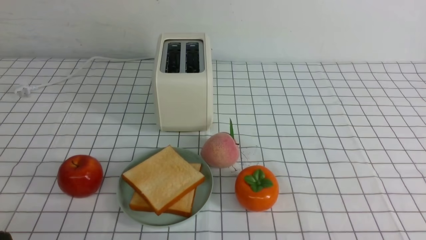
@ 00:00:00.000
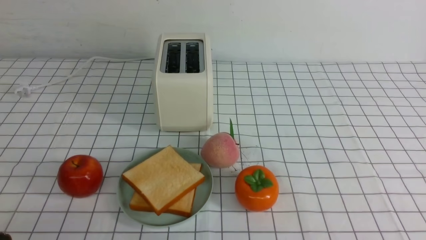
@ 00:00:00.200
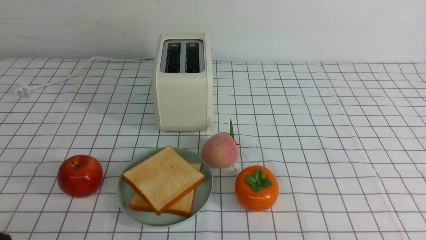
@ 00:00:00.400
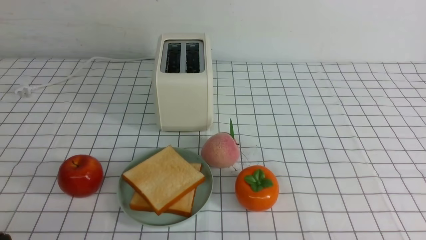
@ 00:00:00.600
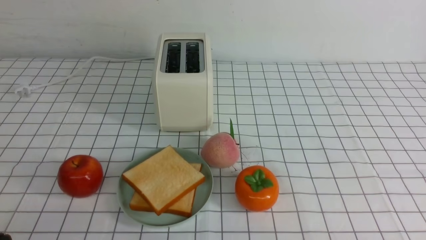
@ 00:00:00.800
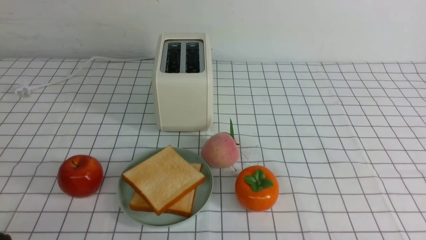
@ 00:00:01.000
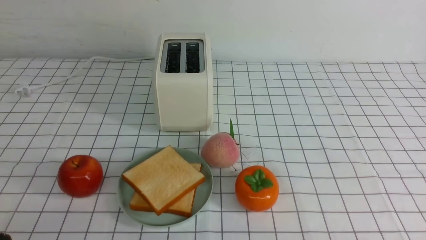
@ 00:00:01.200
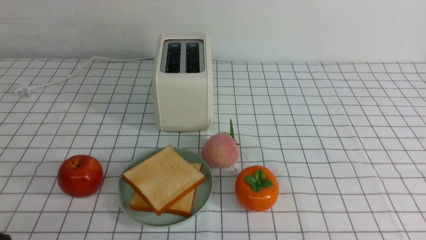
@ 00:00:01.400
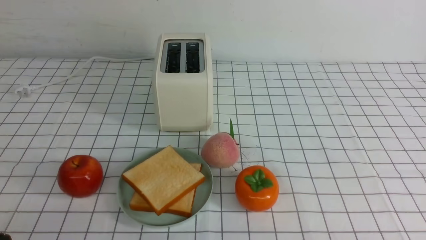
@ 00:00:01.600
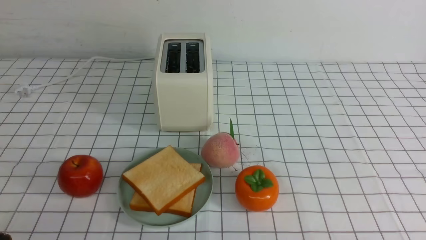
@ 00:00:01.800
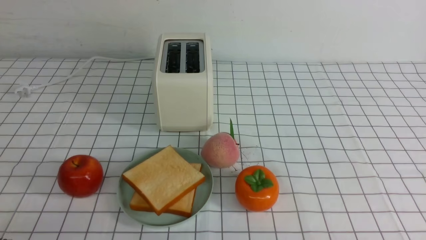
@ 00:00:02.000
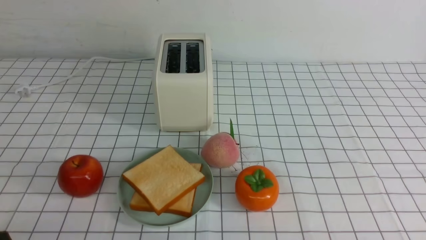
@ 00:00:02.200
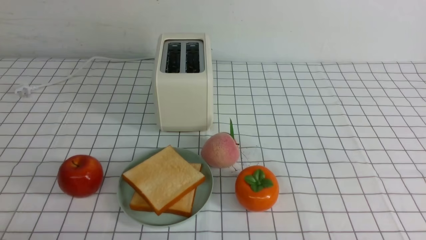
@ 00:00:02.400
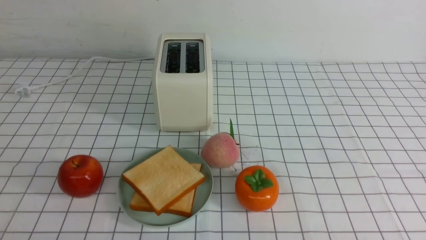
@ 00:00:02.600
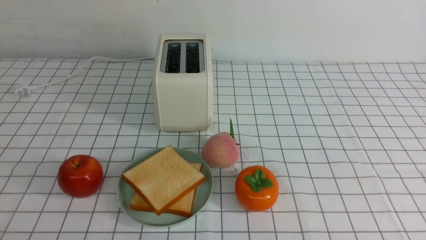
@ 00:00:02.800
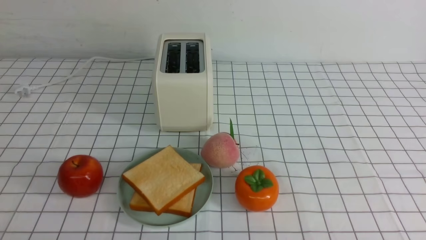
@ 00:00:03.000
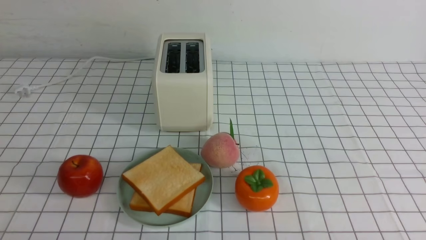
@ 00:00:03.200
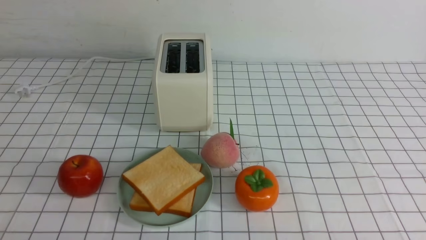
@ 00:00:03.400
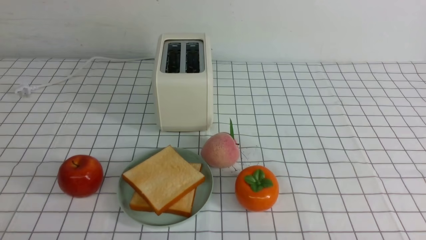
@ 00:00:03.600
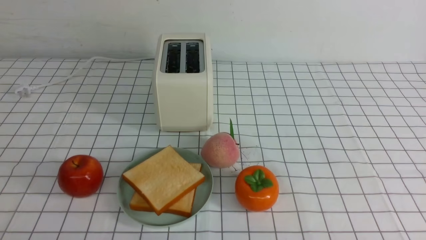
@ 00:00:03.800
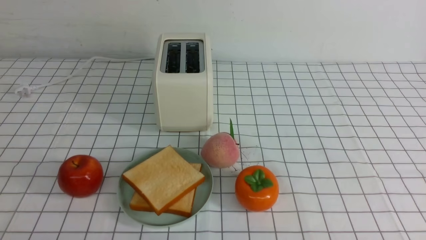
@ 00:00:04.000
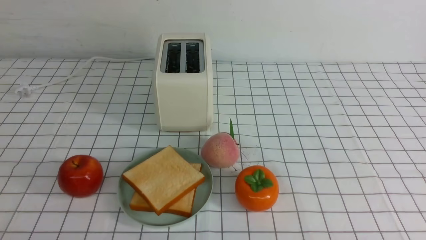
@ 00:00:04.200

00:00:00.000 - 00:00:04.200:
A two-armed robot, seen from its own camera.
Task of the whole recording: take toasted bread from bread machine on white checkered table place on plate.
00:00:02.800 - 00:00:04.200: Both grippers stay put.

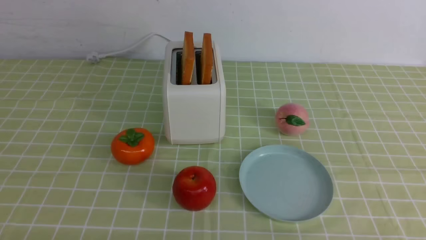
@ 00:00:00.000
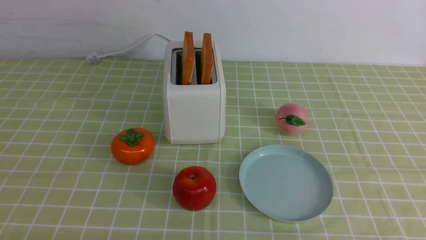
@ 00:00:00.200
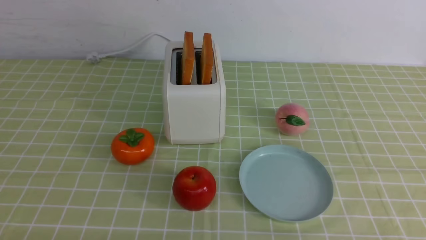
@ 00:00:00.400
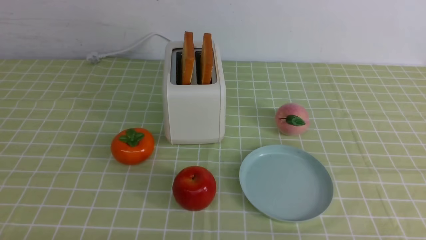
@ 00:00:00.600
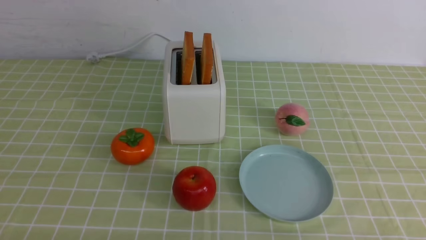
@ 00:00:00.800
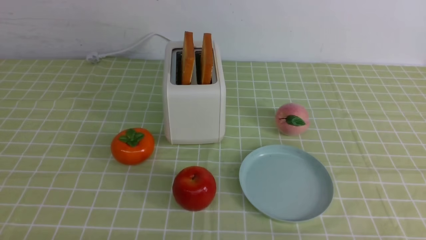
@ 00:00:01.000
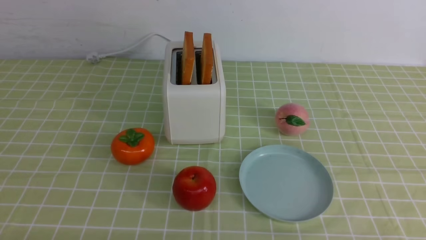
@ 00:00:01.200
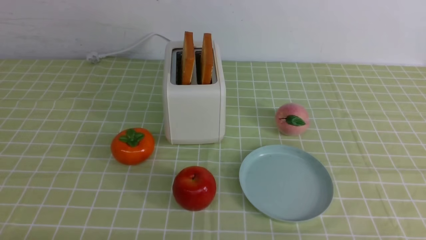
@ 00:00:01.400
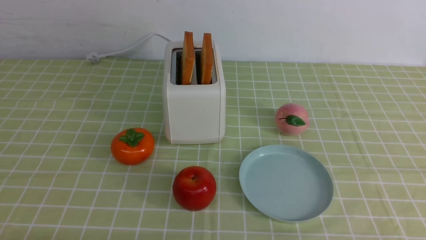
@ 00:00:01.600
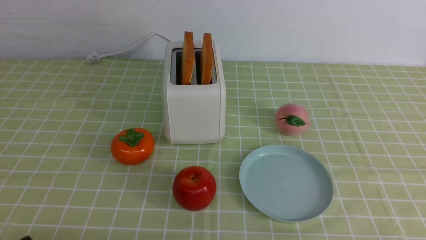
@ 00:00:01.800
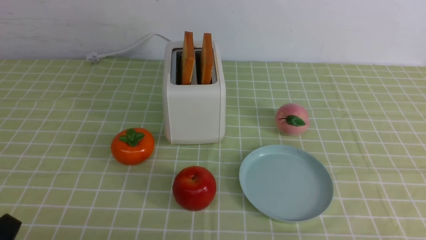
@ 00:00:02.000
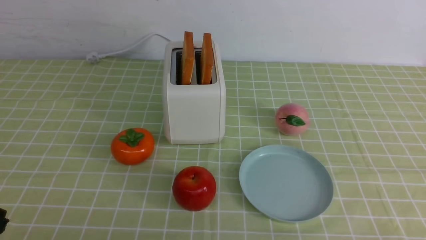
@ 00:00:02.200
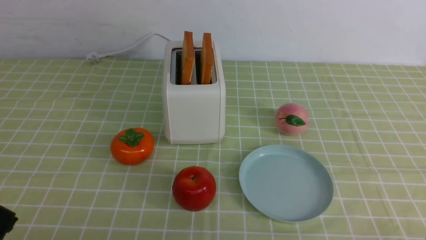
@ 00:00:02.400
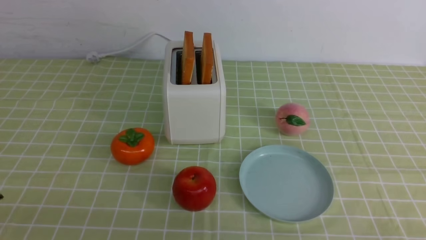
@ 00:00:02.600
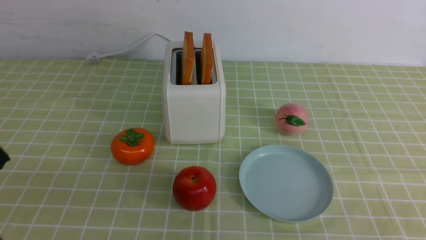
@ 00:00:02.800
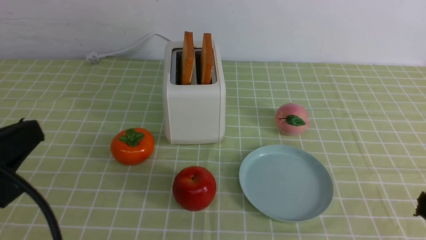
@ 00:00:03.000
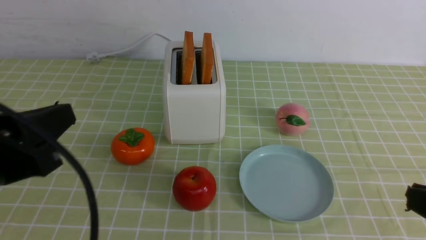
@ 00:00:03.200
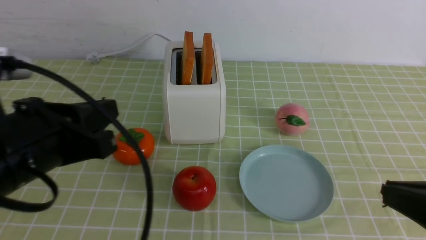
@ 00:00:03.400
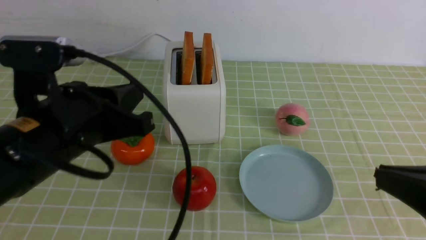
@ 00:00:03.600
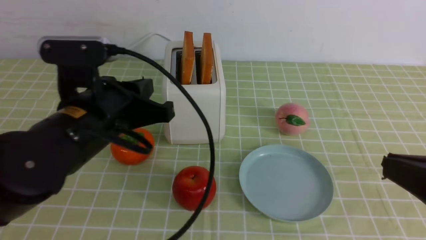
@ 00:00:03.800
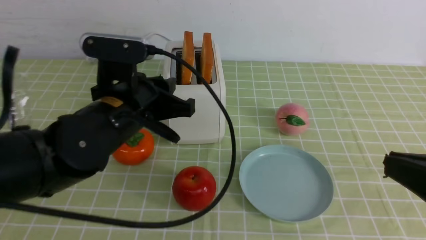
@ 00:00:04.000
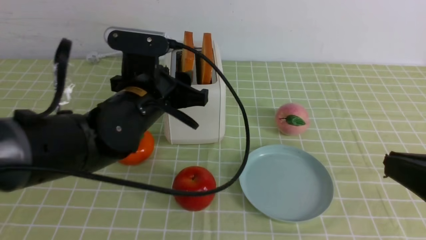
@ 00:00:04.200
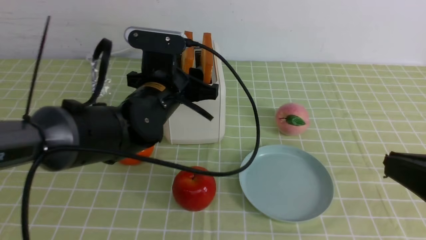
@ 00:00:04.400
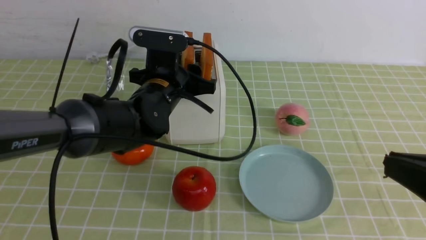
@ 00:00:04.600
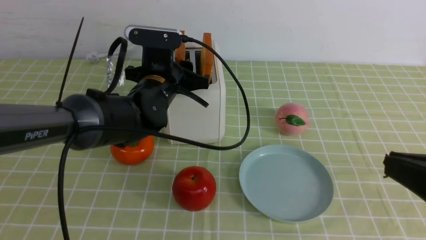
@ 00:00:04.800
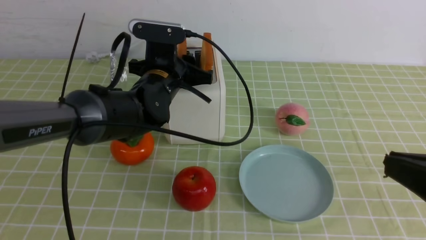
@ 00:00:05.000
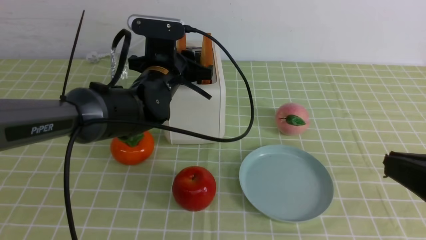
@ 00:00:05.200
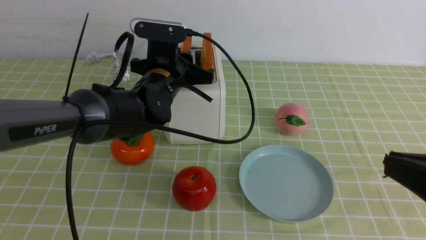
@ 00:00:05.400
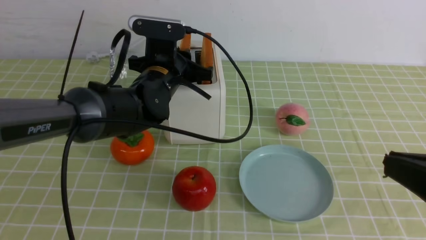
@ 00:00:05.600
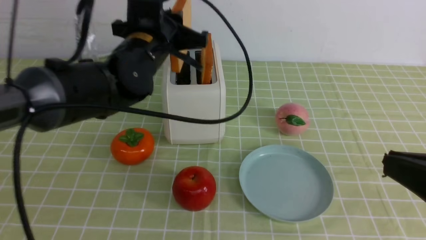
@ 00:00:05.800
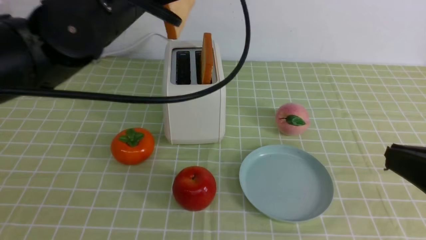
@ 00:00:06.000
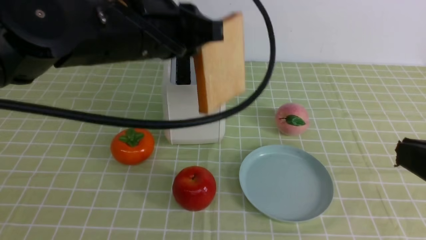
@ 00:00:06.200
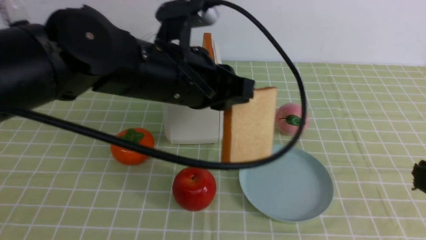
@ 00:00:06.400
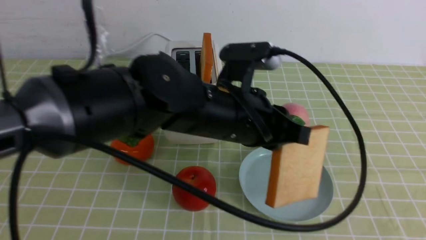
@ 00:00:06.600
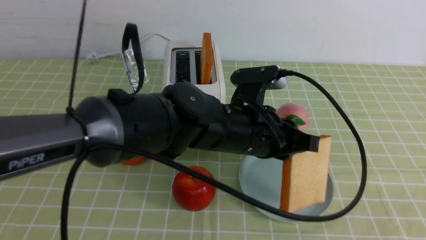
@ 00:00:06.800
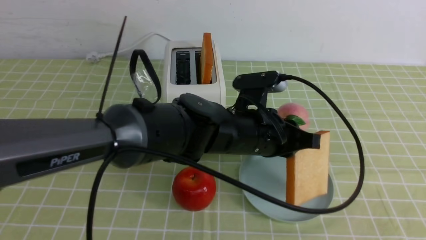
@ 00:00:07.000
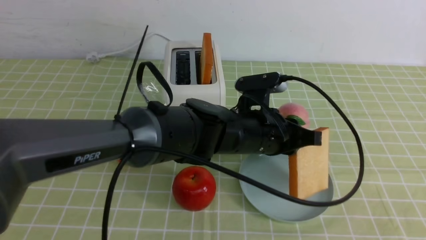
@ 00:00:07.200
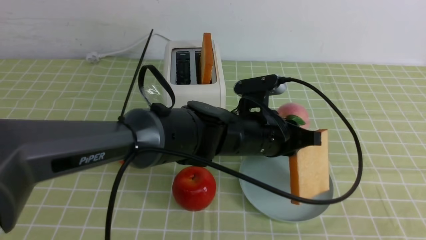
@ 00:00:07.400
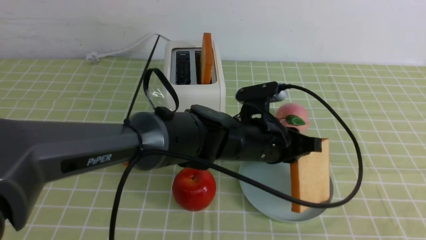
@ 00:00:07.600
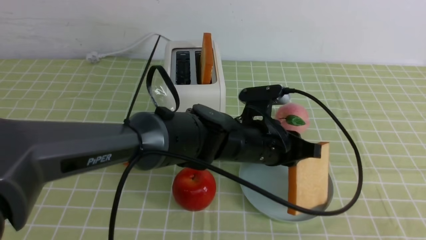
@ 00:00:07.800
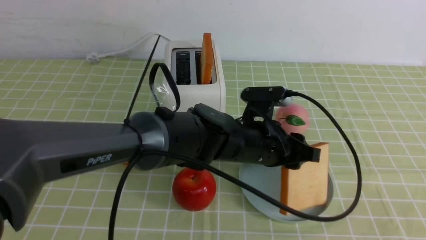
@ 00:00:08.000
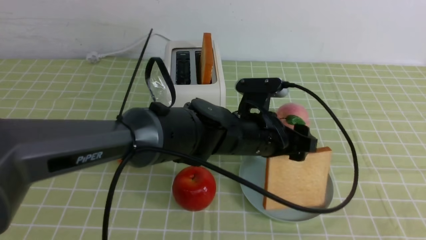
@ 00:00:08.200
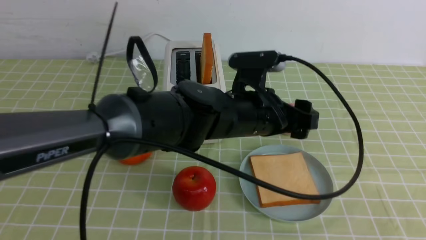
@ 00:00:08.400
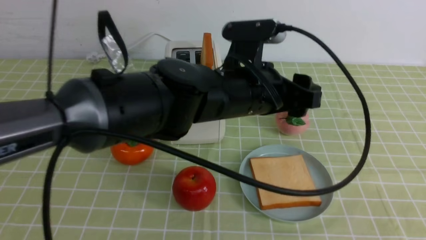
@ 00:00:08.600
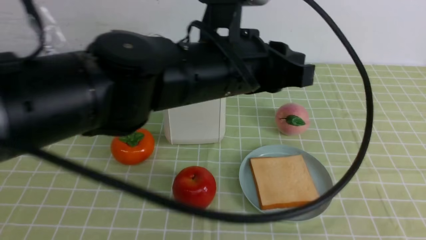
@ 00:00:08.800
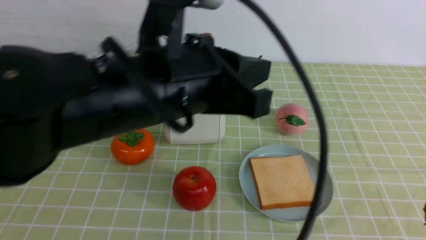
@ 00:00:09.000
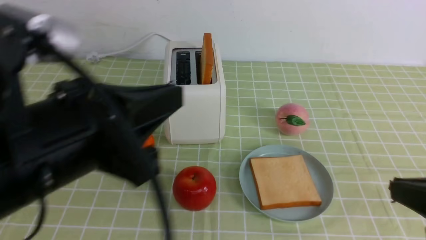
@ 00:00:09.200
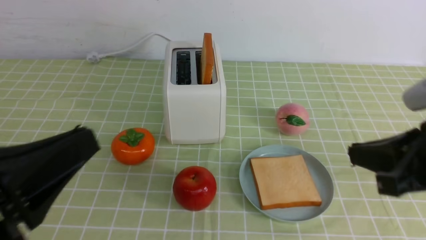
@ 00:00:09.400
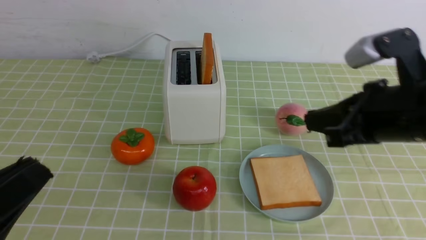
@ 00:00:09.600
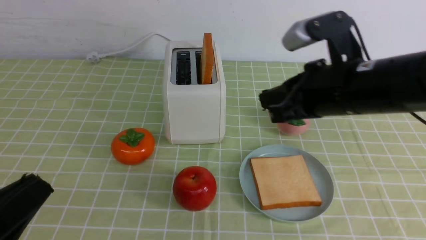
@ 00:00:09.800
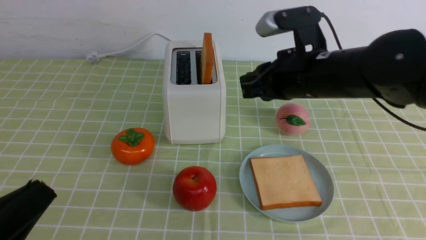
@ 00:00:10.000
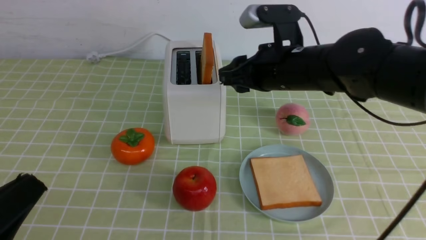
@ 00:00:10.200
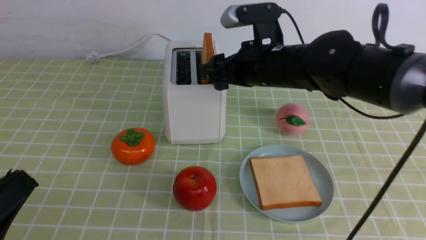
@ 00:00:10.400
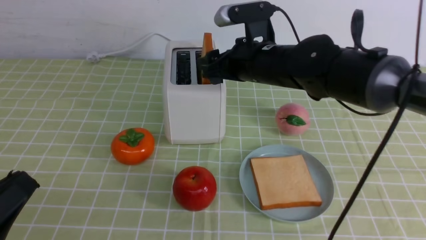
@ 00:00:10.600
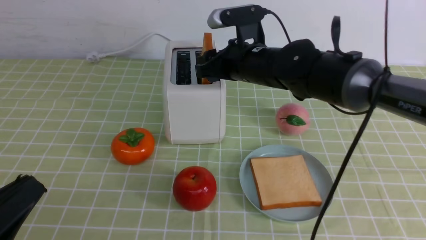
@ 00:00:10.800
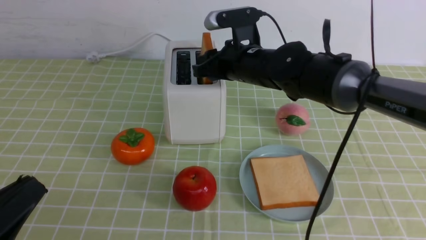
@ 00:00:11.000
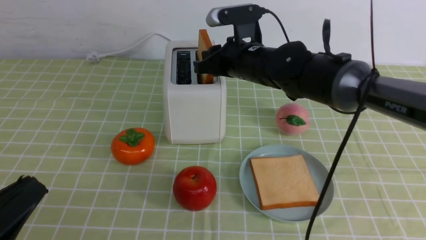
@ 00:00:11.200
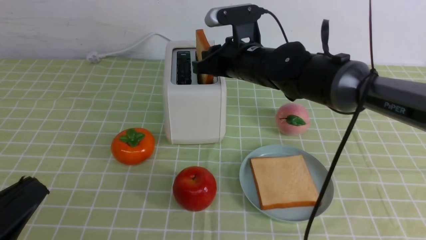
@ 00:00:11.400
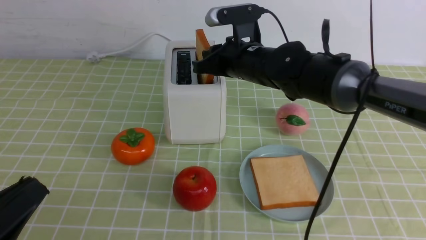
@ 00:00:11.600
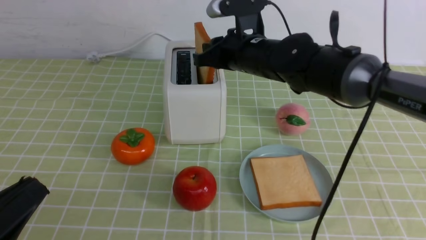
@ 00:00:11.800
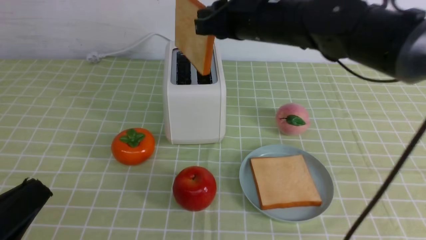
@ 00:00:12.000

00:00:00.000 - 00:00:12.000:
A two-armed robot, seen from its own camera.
Task of the whole recording: take toasted bread from bread machine on green coffee tablecloth place on plate.
Step, 00:00:00.000 - 00:00:05.800: use the left arm to take out a slice of bread.
Step, 00:00:06.000 - 00:00:08.400: use the left arm to put a slice of bread into the empty plate.
Step, 00:00:08.600 - 00:00:12.000: use the right arm to take out a slice of bread.
00:00:01.600 - 00:00:03.000: The left gripper is displaced upward by approximately 15 cm, and closes its fingers.
00:00:03.000 - 00:00:04.400: The left gripper is displaced forward and to the right by approximately 30 cm, and opens its fingers. Meanwhile the right gripper shifts by about 5 cm.
00:00:04.400 - 00:00:06.000: The left gripper moves upward, about 10 cm, and closes up.
00:00:06.000 - 00:00:07.600: The right gripper travels backward by approximately 5 cm, while the left gripper is displaced downward and to the right by roughly 20 cm.
00:00:07.600 - 00:00:09.000: The right gripper changes place by some 5 cm. The left gripper is displaced upward, to the left and backward by roughly 25 cm, and opens and closes again.
00:00:09.000 - 00:00:10.400: The right gripper is displaced forward and to the left by approximately 35 cm, and opens its fingers; the left gripper travels to the left, backward and downward by approximately 25 cm.
00:00:10.400 - 00:00:12.000: The right gripper heads upward, covering roughly 10 cm, and closes its fingers.
